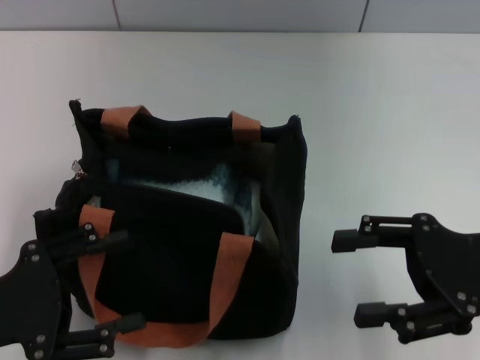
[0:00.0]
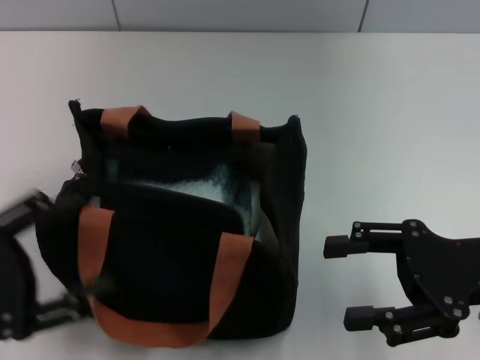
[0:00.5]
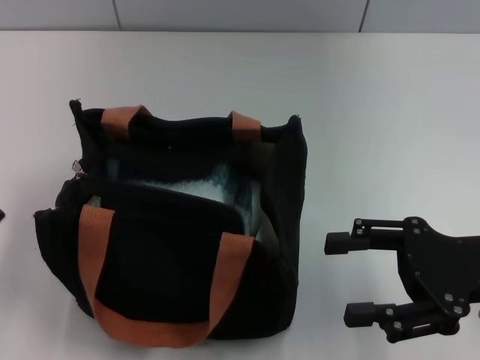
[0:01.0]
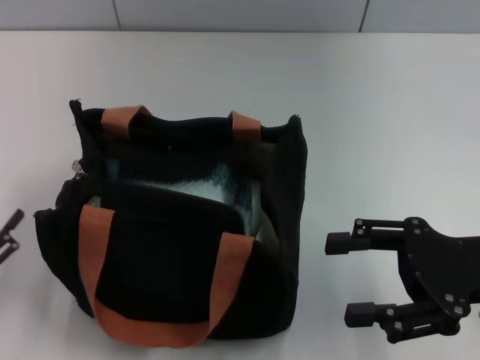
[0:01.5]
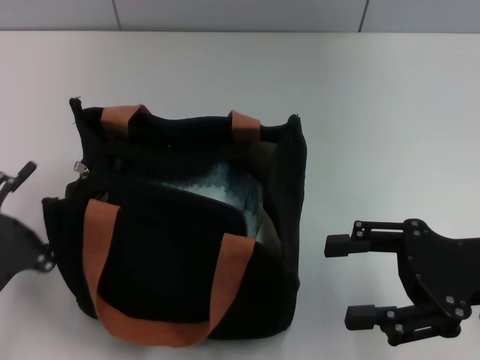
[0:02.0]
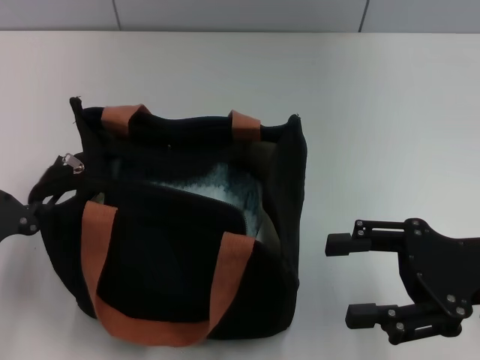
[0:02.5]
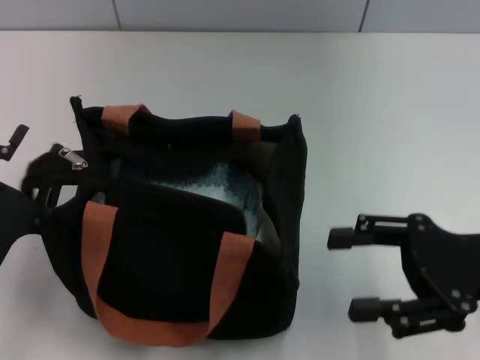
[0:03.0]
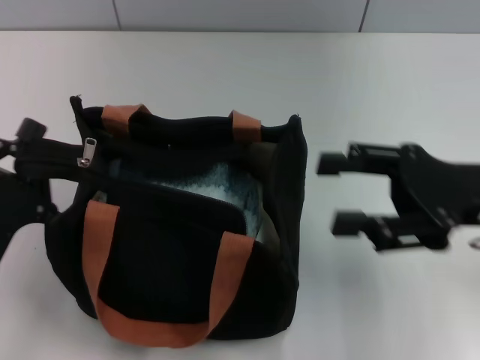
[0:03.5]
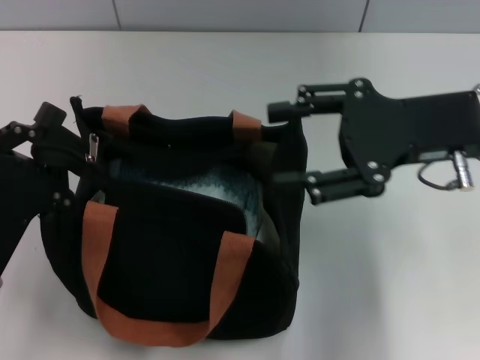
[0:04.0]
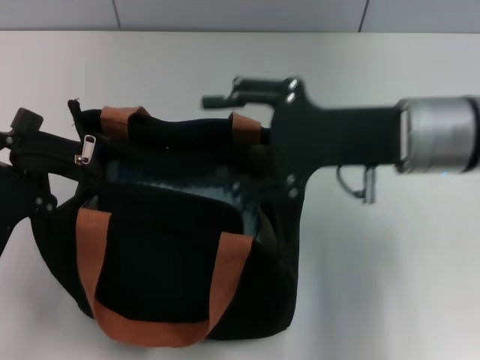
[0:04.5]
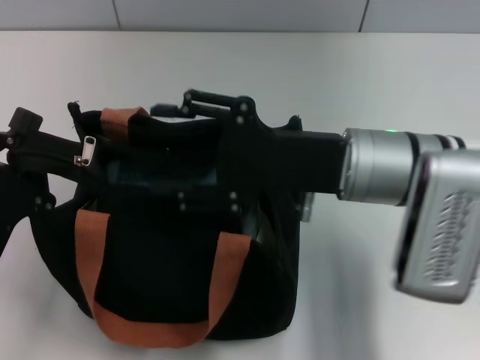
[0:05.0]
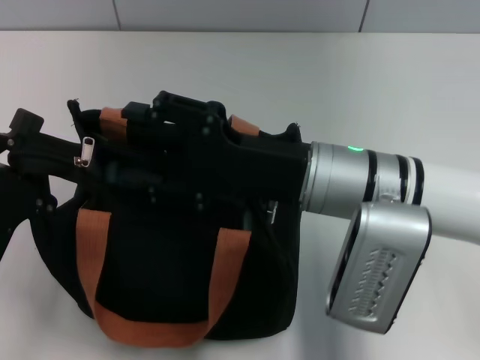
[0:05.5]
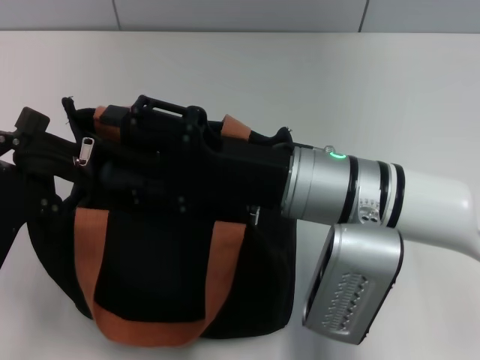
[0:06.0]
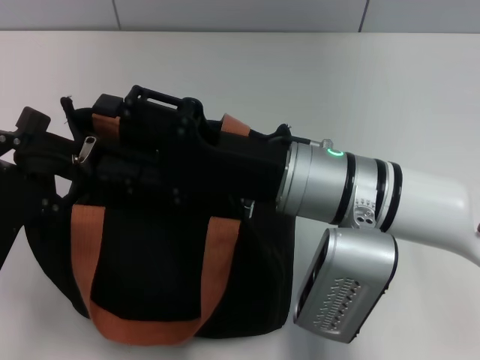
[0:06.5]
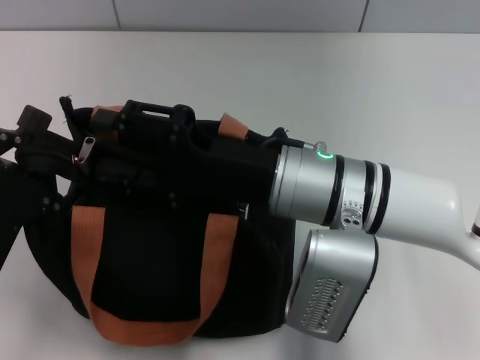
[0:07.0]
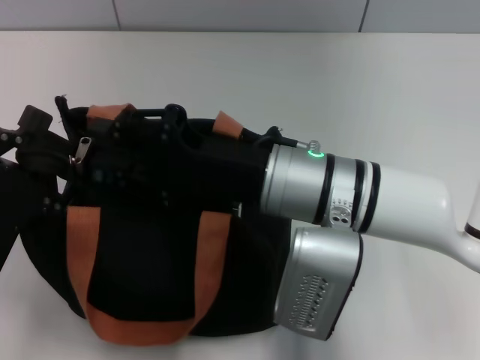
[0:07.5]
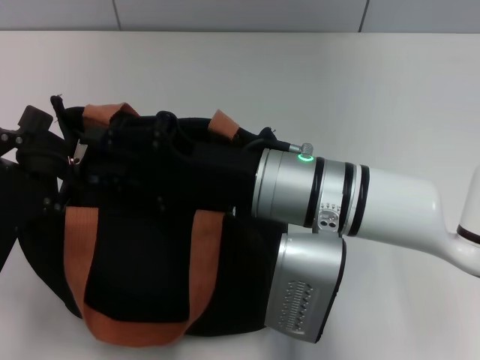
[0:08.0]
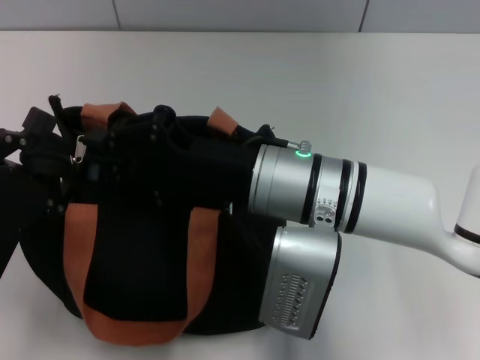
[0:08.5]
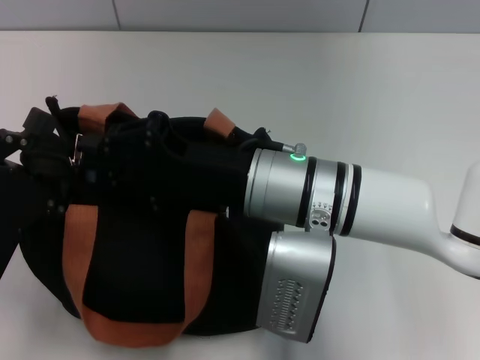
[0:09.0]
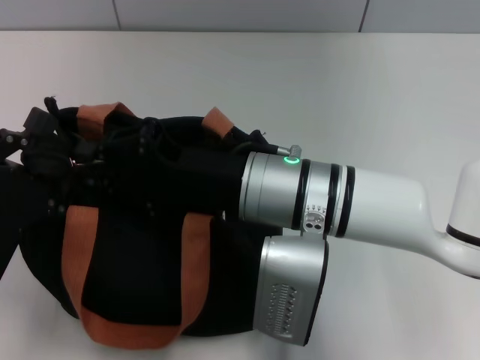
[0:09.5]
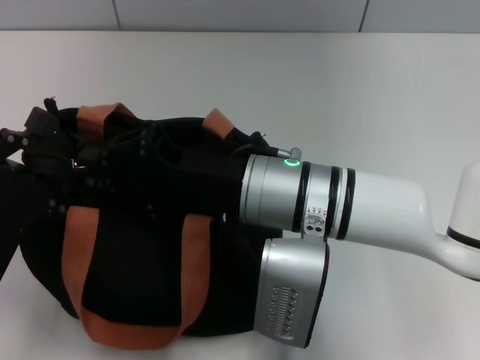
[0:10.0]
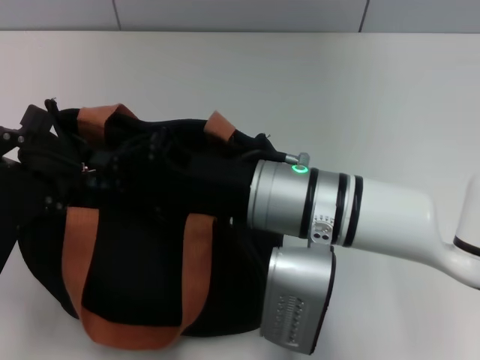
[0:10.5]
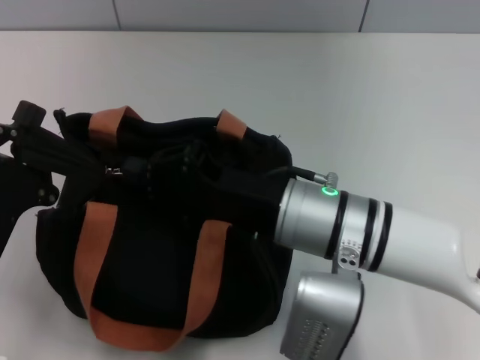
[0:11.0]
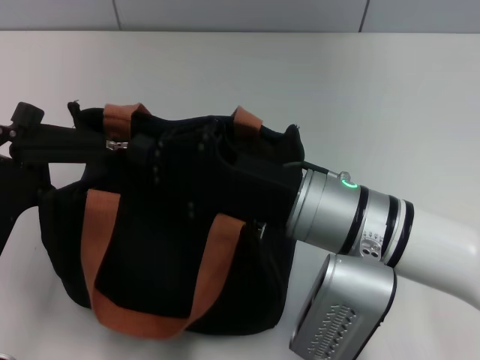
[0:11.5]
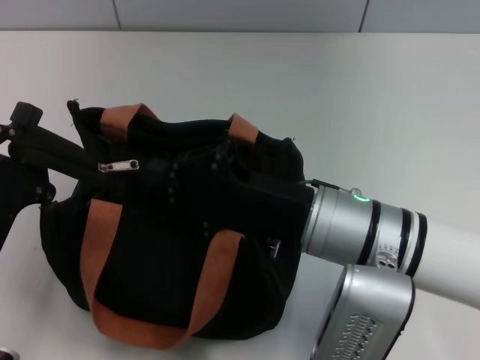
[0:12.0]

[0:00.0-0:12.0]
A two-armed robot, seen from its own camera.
0:00.0 to 0:02.0: The left gripper moves downward, about 5 cm.
0:02.0 to 0:04.0: The left gripper shifts by roughly 5 cm, and closes, while the right gripper shifts about 10 cm forward and upward.
0:04.0 to 0:06.0: The right gripper goes about 15 cm to the left and downward.
0:06.0 to 0:08.0: The right gripper closes.
0:08.0 to 0:10.0: Neither gripper changes place.
0:10.0 to 0:12.0: The right gripper moves roughly 5 cm.

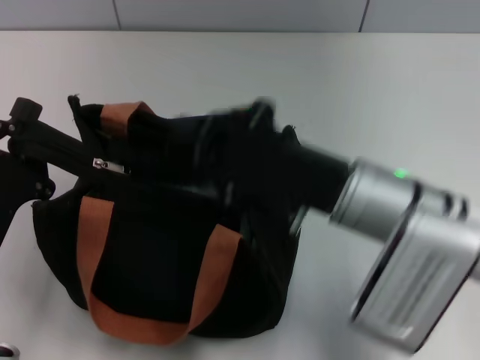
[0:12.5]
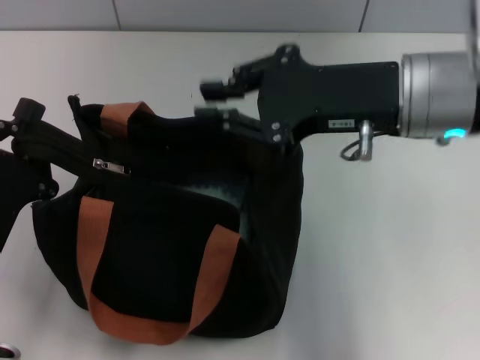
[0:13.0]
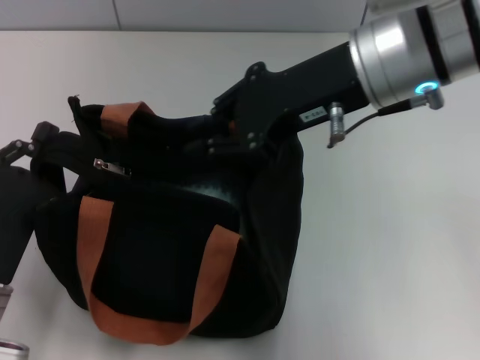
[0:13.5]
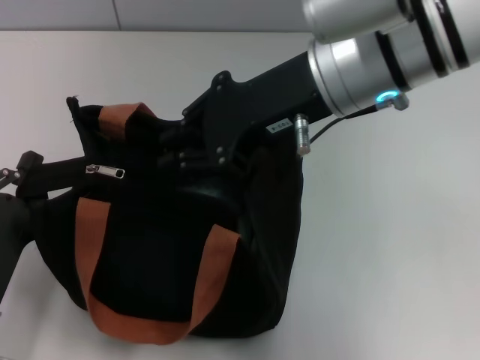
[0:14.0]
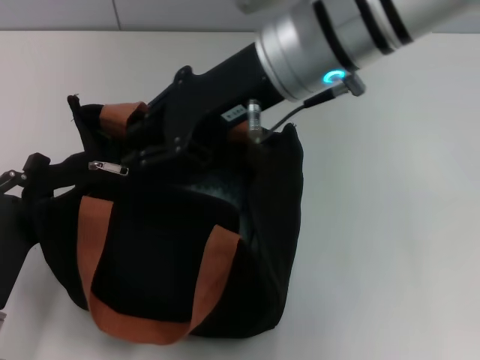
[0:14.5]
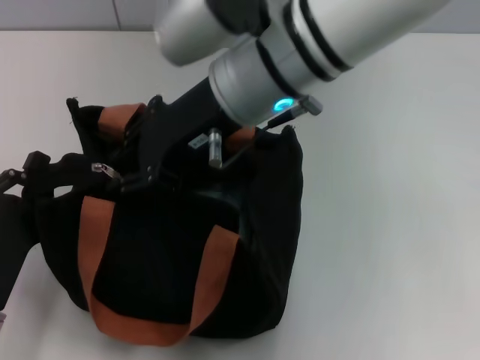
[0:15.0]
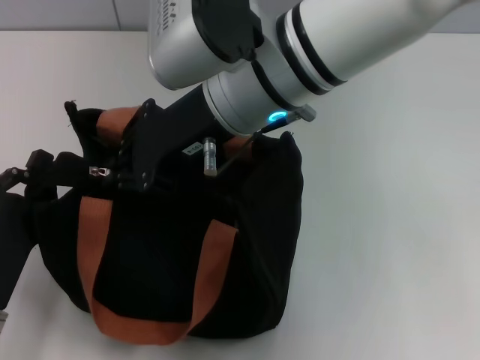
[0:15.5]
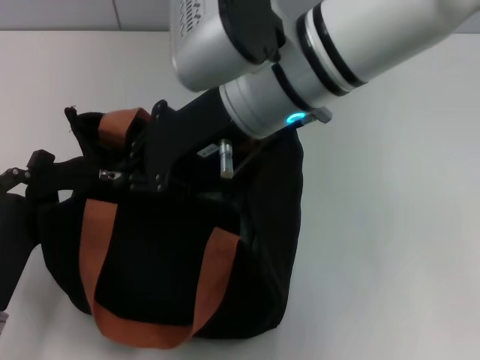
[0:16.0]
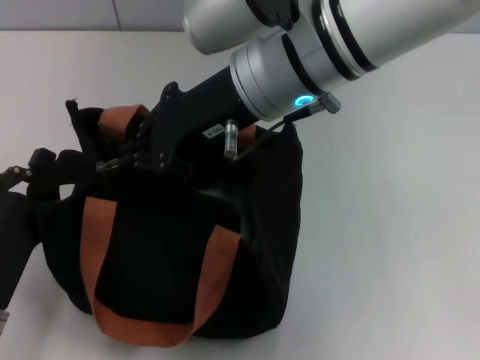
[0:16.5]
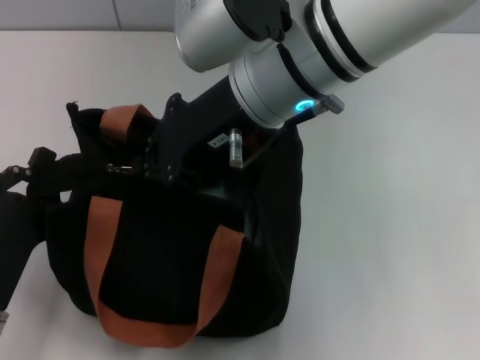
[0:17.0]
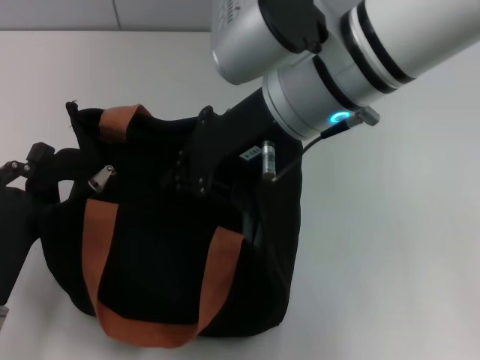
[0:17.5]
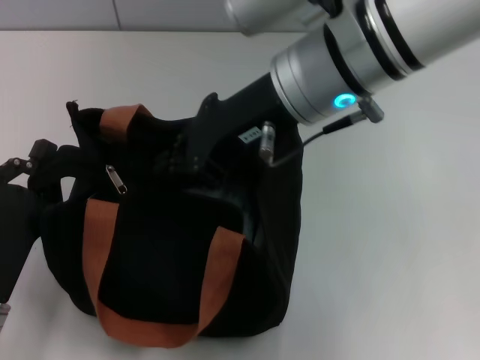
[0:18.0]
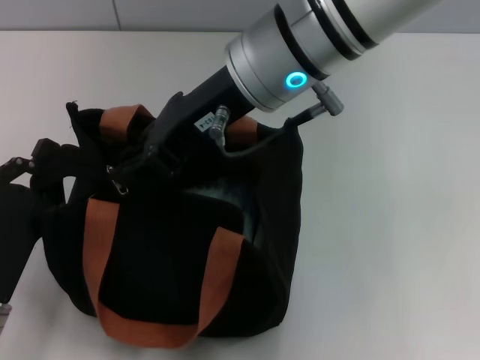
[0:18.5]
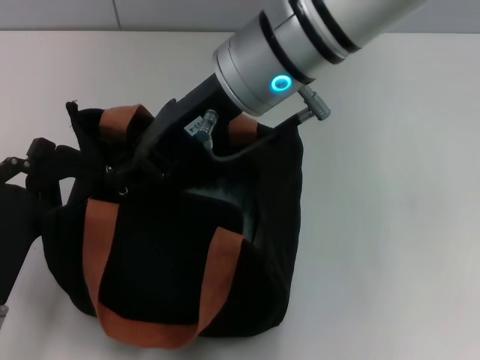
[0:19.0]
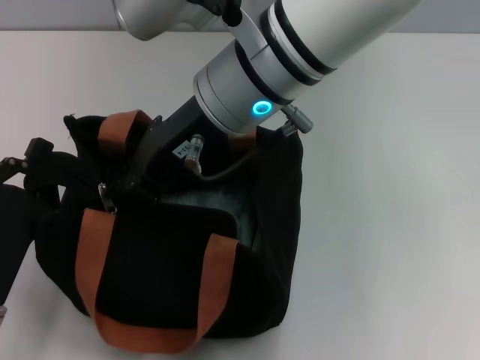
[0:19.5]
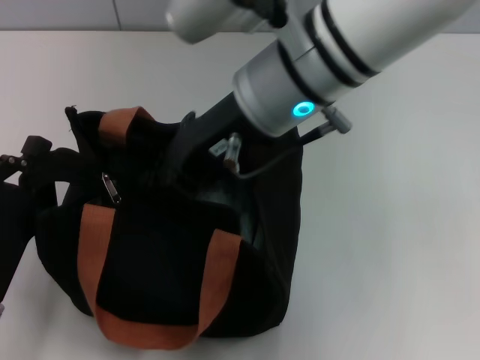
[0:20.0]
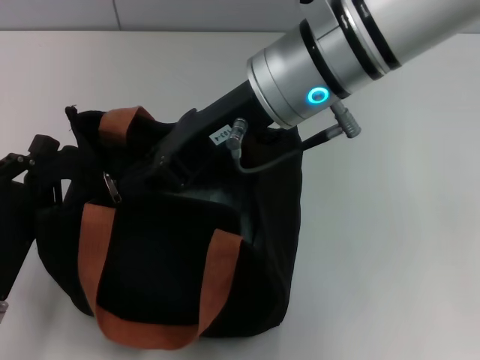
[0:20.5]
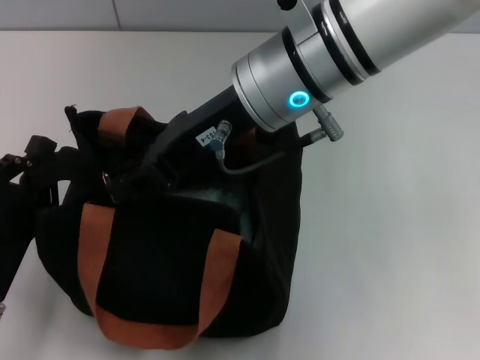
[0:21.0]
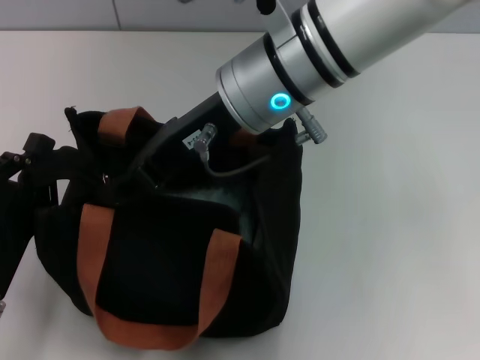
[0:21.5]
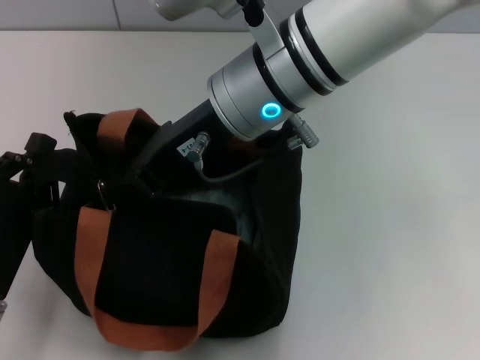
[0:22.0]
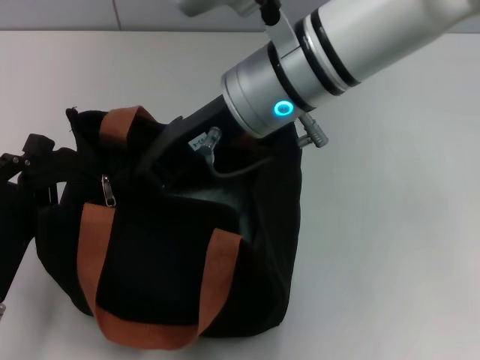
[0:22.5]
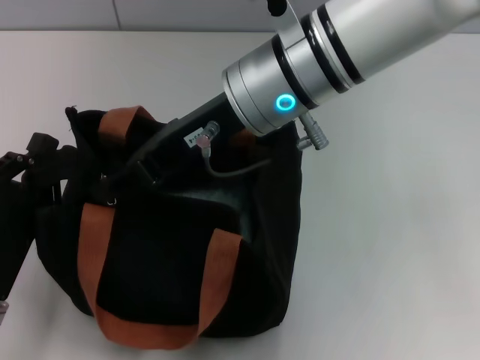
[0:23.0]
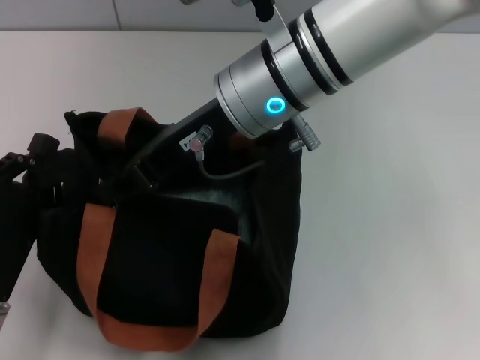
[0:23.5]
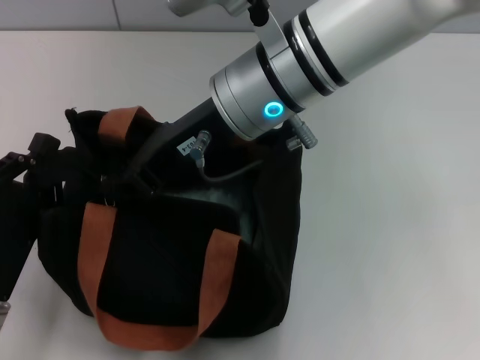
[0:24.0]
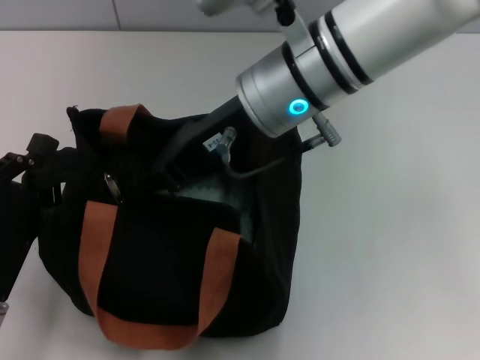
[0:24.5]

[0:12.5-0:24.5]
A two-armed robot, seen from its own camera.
0:12.5 to 0:14.5: The right gripper is displaced upward, forward and to the left by about 15 cm.
0:14.5 to 0:18.5: There are only small adjustments of the grippers.
0:18.5 to 0:20.5: The grippers make only small movements.
0:20.5 to 0:22.5: The right gripper opens, then closes once more.
0:22.5 to 0:24.5: The right gripper opens, then closes once more.

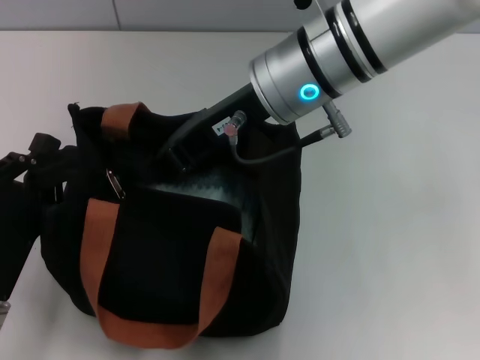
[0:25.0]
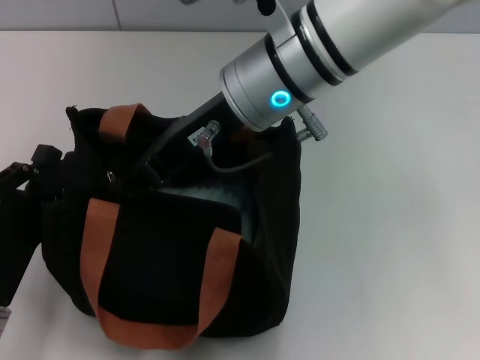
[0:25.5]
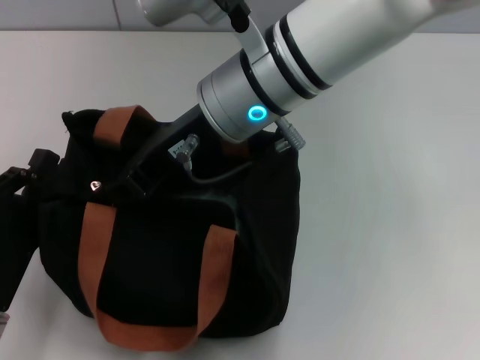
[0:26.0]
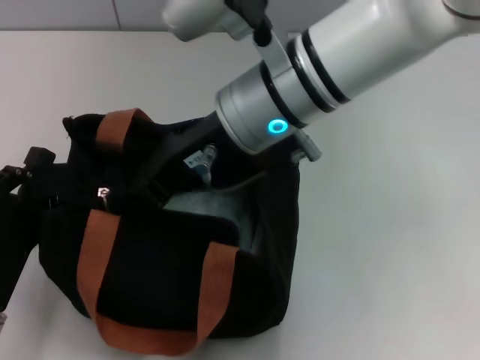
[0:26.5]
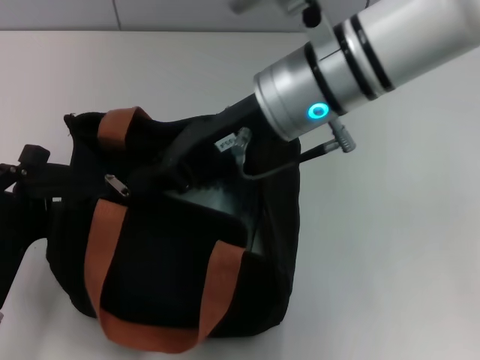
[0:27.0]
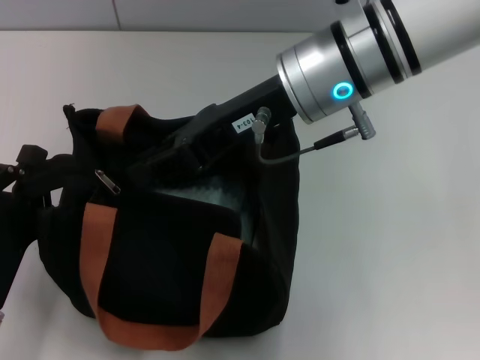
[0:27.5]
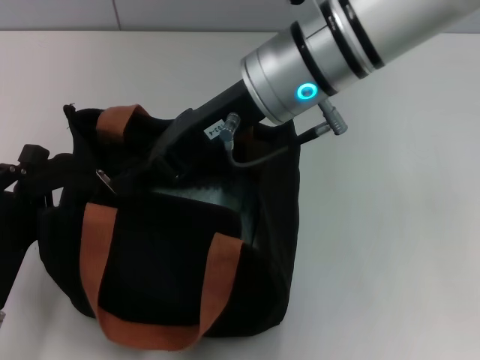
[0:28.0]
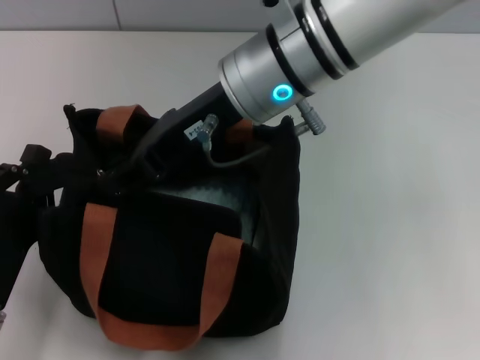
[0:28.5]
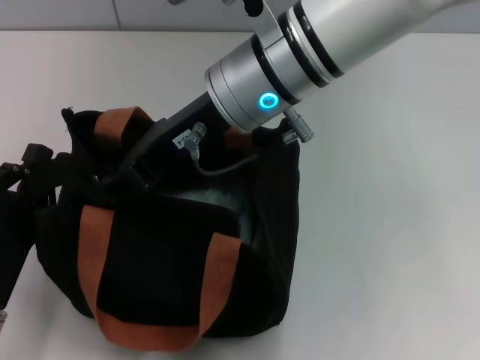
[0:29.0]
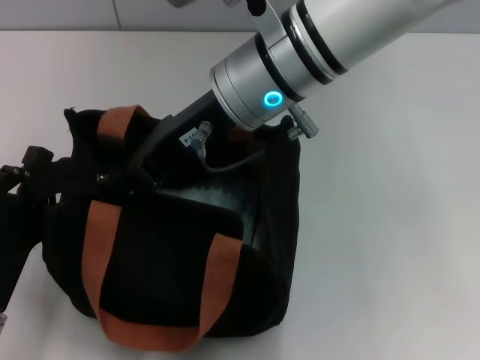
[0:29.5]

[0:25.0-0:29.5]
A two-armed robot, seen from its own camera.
0:25.0 to 0:29.5: The grippers stay close to where they were, moving slightly.
